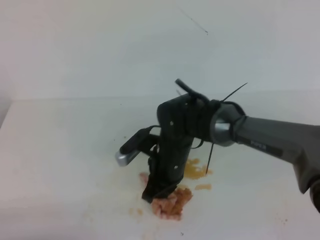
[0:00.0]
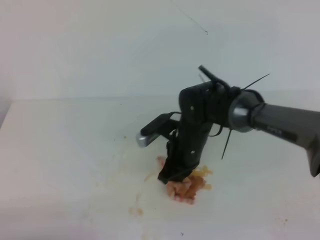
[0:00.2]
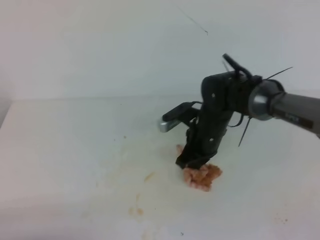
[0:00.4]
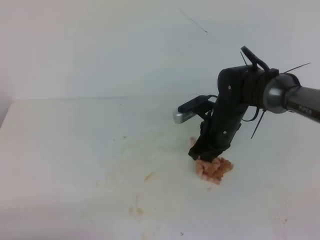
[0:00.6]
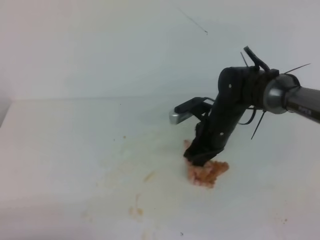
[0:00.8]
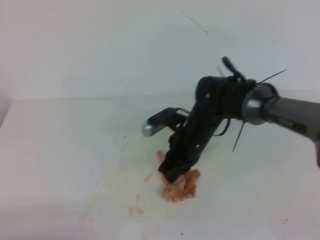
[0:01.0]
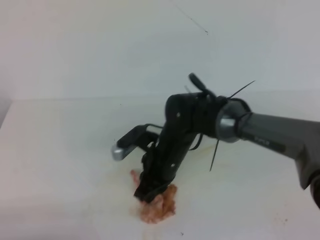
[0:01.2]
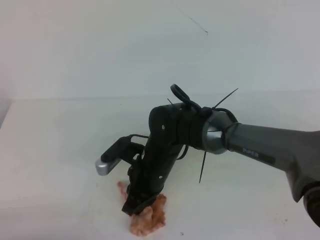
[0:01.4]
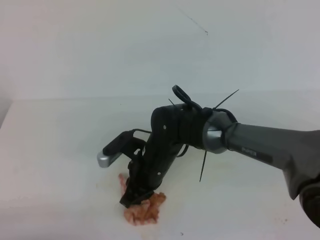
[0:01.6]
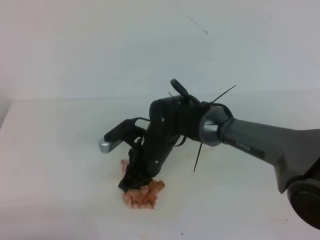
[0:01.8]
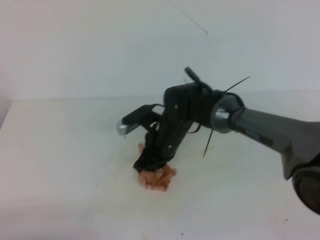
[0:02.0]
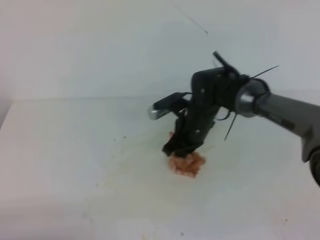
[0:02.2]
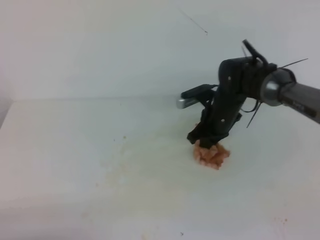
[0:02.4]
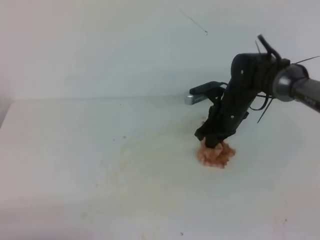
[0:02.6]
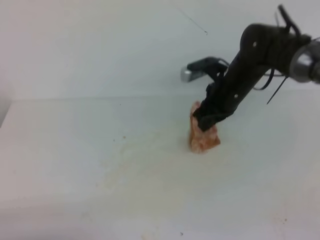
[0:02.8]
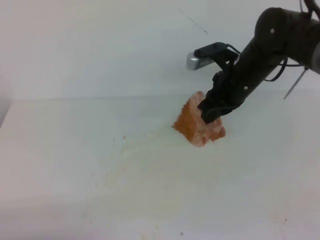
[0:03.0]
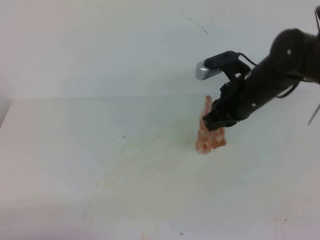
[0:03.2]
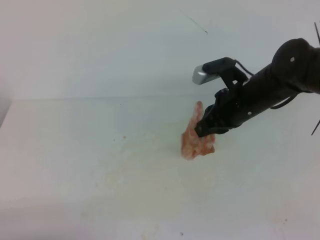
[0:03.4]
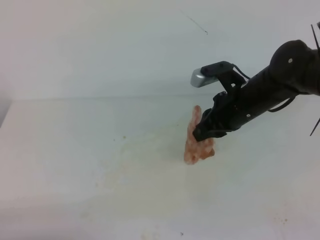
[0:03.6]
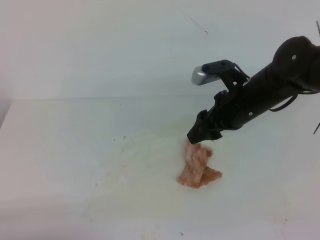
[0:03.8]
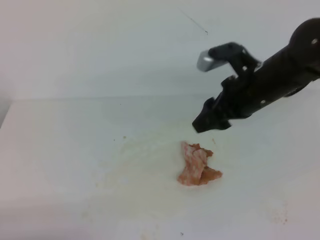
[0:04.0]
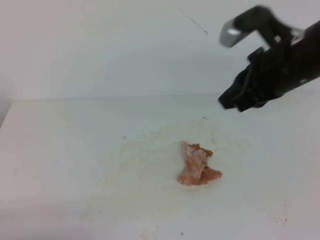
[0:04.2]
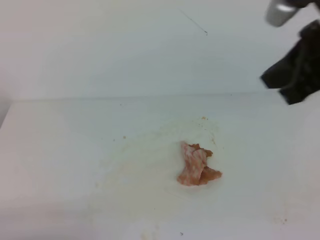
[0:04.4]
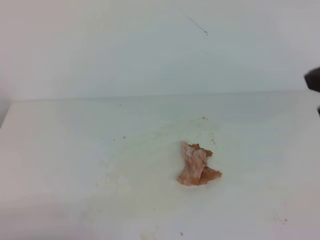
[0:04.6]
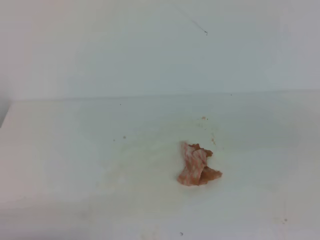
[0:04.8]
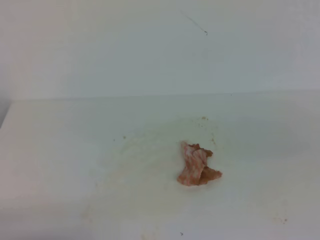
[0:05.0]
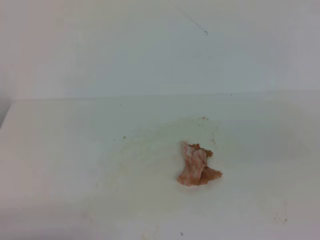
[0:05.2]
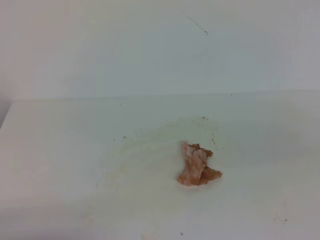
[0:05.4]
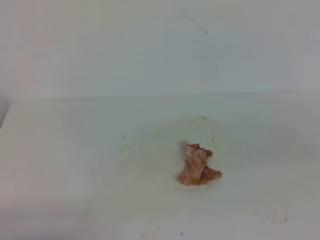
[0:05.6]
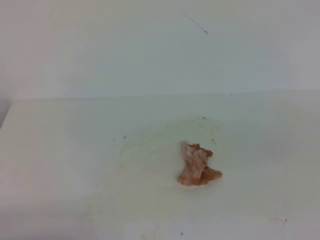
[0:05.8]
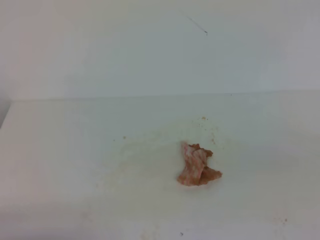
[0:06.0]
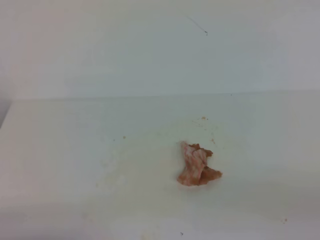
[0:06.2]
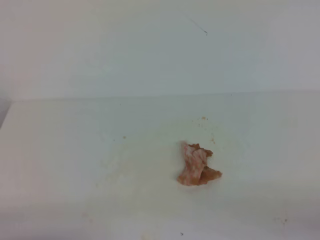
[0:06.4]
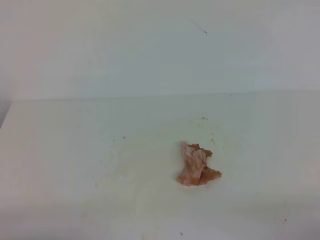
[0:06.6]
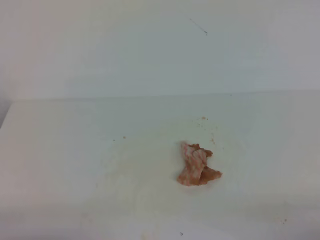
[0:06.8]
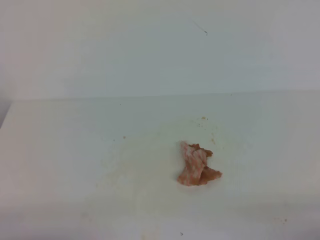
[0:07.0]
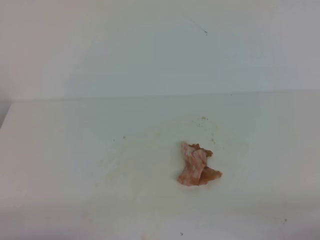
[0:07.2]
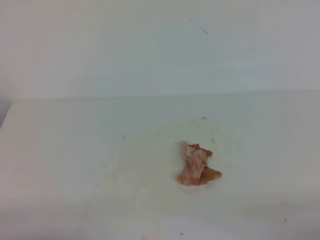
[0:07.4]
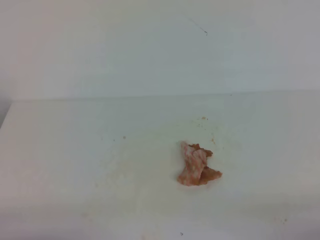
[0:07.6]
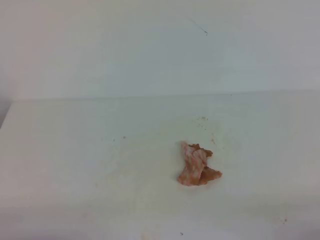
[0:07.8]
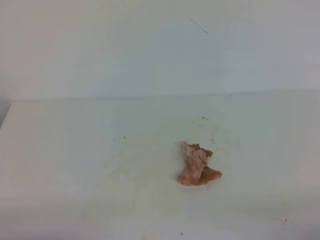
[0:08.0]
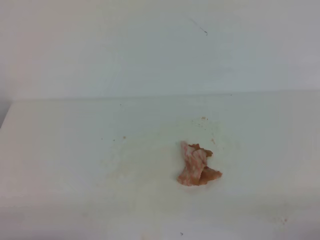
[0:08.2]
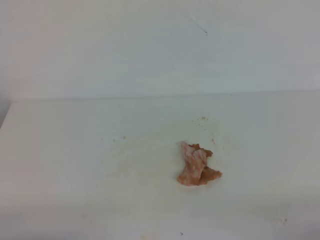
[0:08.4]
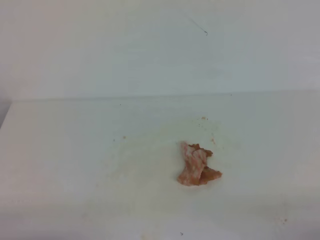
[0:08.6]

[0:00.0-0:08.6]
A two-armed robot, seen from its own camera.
0:00.0 to 0:01.4: The right gripper moves roughly 10 cm to the right and comes back.
0:01.4 to 0:02.8: The right gripper shifts roughly 20 cm to the right and forward.
0:02.8 to 0:04.4: The right gripper goes some 25 cm upward and backward, and opens and closes again.
0:04.4 to 0:05.8: The right gripper goes about 20 cm backward and to the right.
0:07.2 to 0:08.6: The two grippers keep their place.

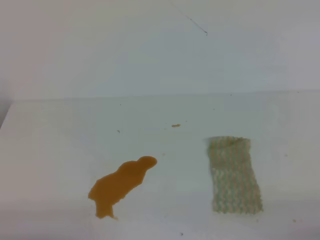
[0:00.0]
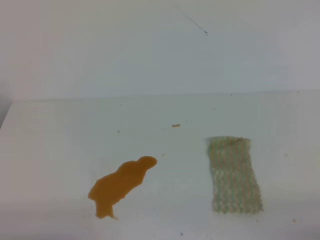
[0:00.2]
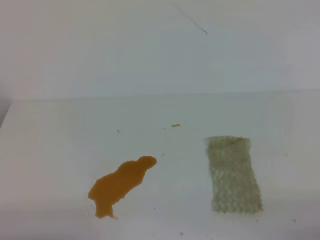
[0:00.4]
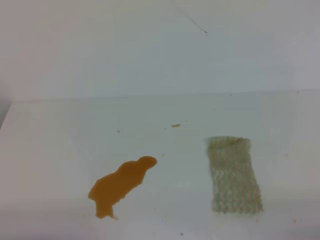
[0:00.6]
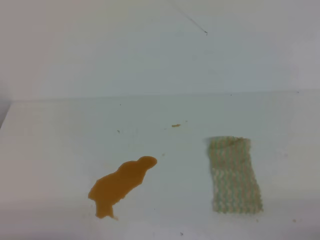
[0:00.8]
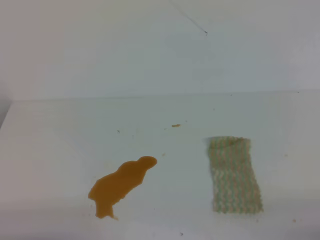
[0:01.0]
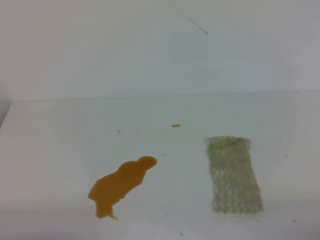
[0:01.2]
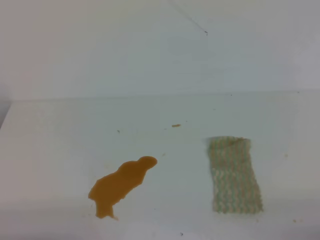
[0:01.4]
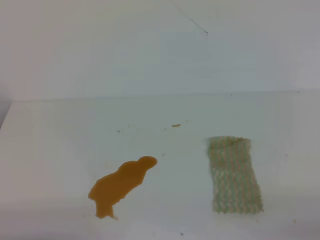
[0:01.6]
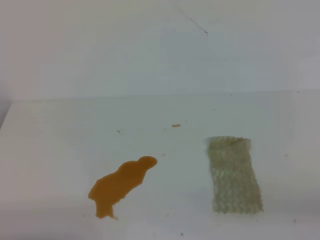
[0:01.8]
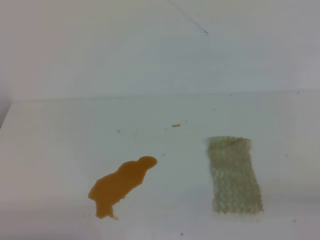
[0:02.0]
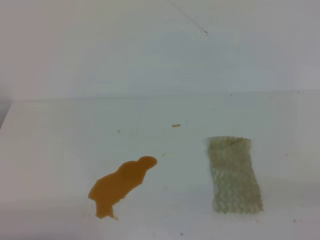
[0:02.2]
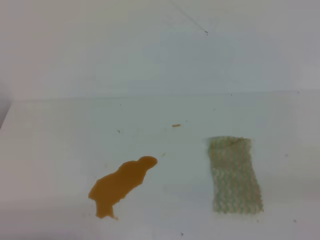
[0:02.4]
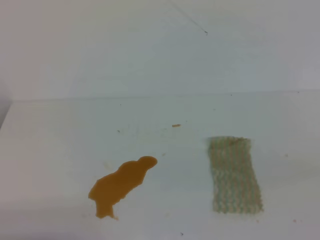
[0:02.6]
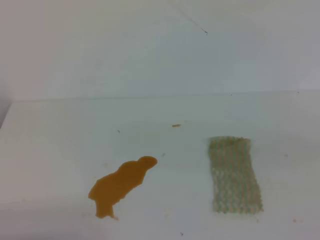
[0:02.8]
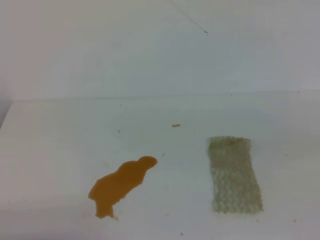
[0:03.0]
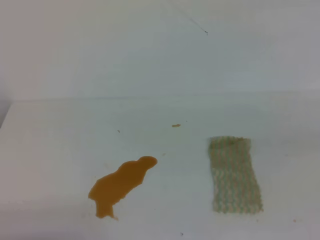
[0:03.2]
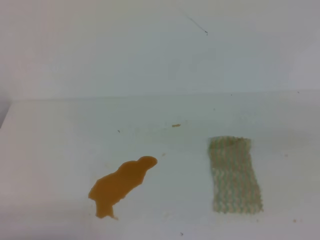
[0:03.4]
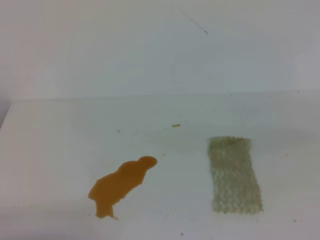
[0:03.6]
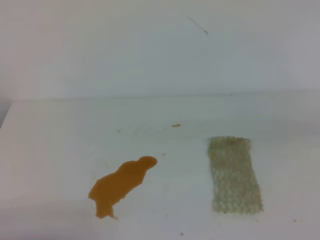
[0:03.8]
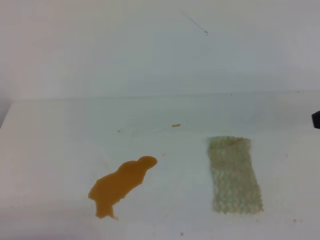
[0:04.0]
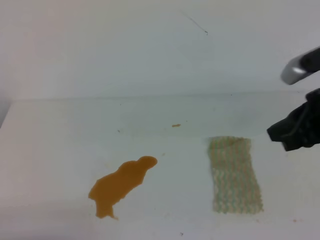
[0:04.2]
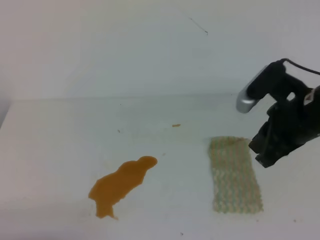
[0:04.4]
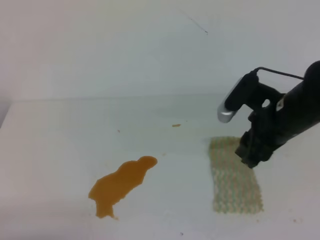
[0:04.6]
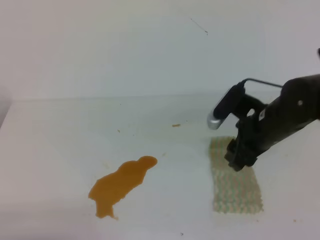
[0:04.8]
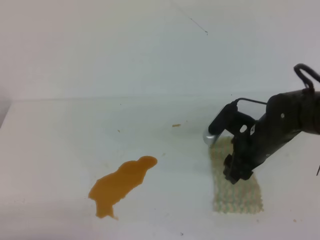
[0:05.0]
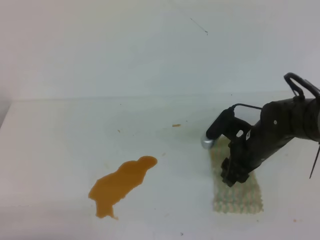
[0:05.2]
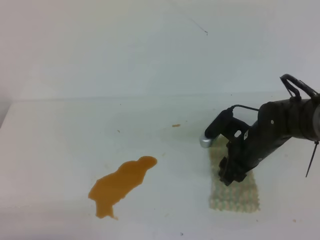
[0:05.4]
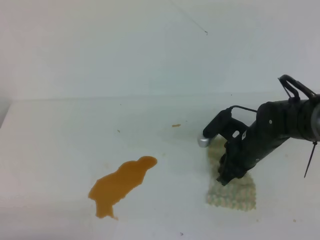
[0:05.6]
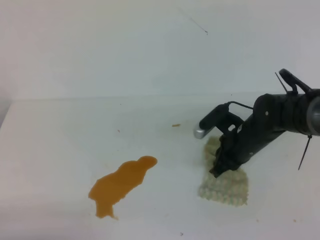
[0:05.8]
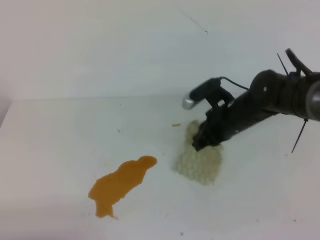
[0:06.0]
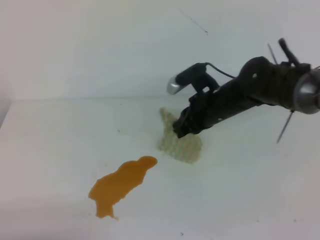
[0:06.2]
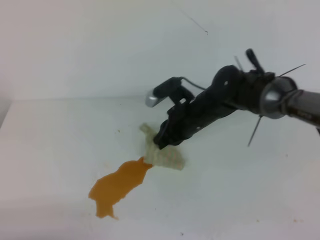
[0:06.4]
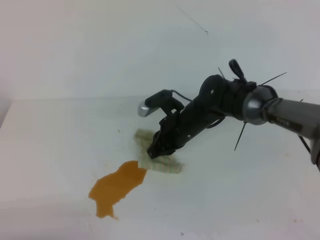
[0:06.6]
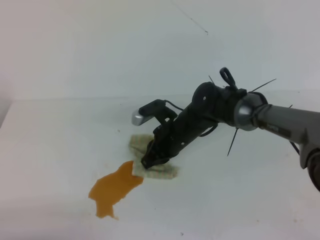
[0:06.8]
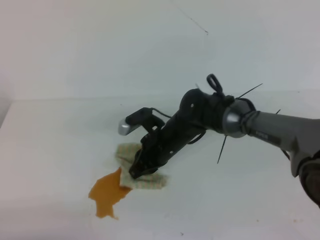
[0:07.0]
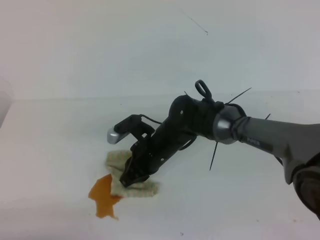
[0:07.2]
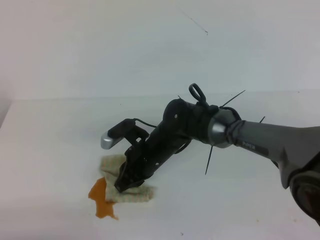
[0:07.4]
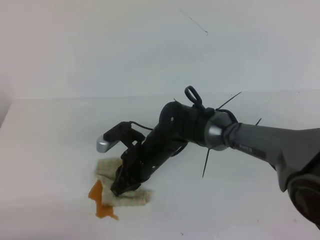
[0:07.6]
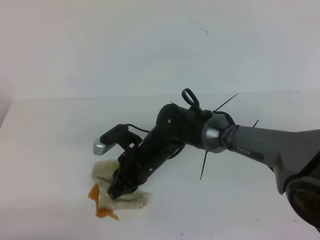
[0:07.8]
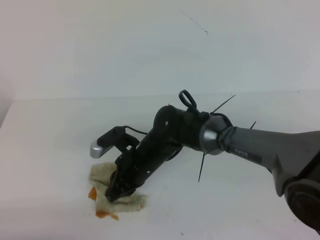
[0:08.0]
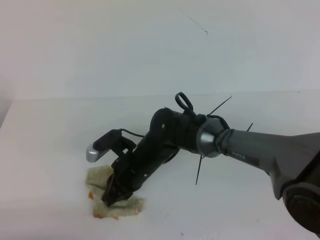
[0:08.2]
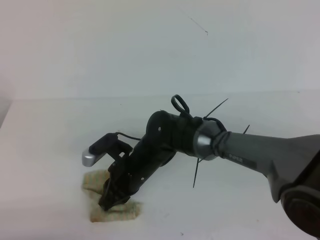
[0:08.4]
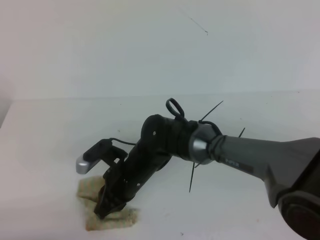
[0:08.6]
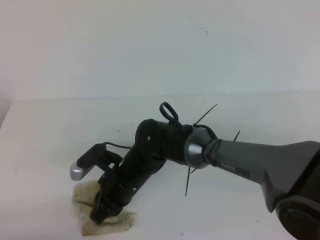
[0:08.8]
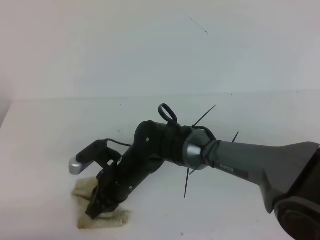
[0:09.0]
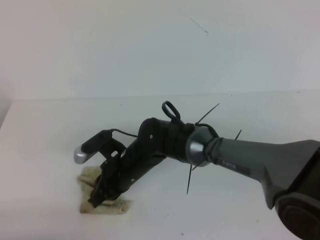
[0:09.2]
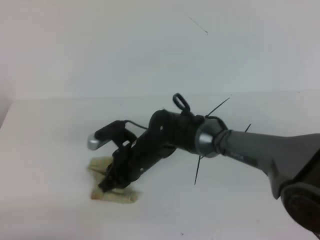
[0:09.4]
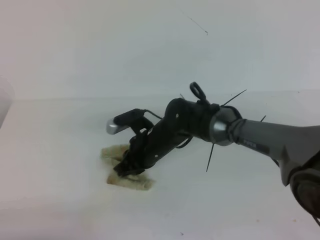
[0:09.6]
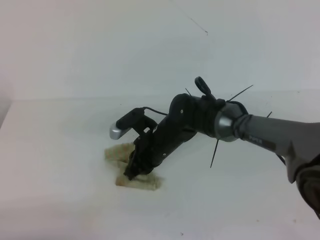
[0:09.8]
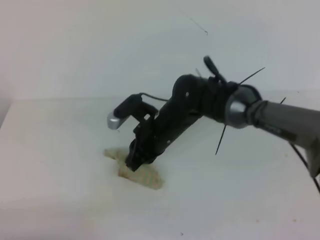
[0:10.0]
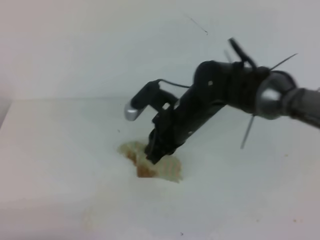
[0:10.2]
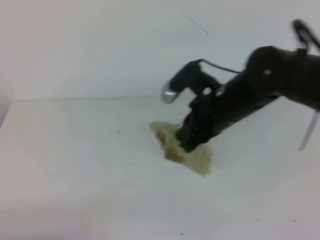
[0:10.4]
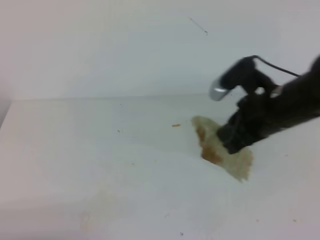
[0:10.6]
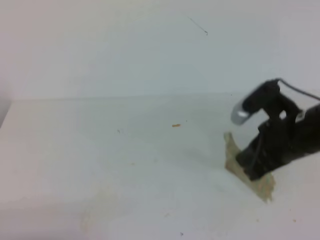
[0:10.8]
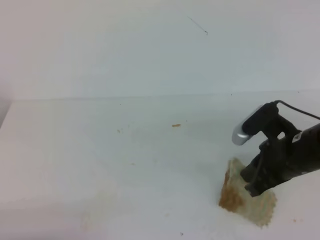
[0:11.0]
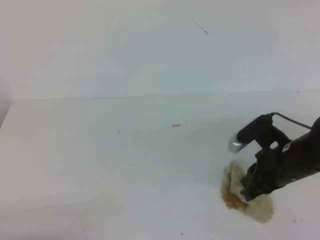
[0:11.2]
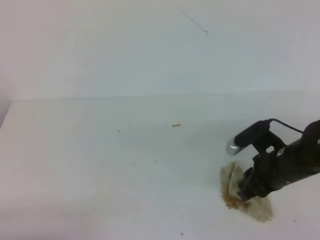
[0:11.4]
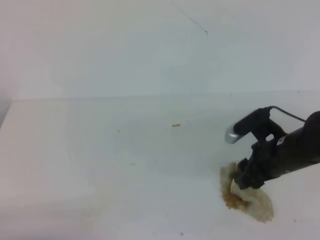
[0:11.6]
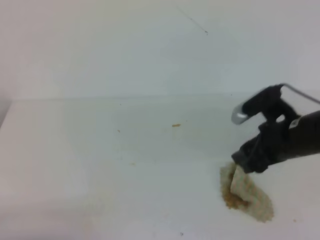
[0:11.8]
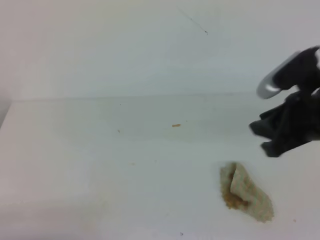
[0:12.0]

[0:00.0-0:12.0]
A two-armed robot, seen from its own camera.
0:03.0 to 0:04.4: The right gripper shifts approximately 20 cm forward and to the left, and opens.
0:04.4 to 0:06.0: The right gripper shifts roughly 15 cm downward, forward and to the left, and closes up.
0:06.0 to 0:07.6: The right gripper travels to the left by approximately 15 cm.
0:07.6 to 0:09.0: The right gripper ends up approximately 5 cm from where it was.
0:09.0 to 0:10.4: The right gripper shifts about 20 cm to the right and upward.
0:10.4 to 0:12.0: The right gripper travels to the right and backward by roughly 15 cm, moves roughly 10 cm downward and comes back, and opens.

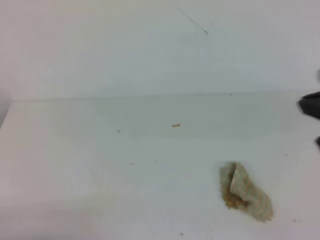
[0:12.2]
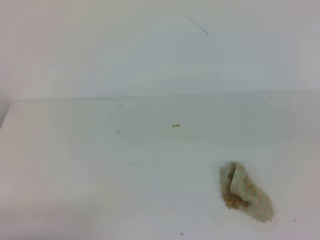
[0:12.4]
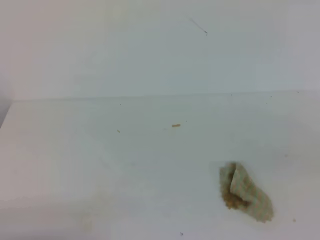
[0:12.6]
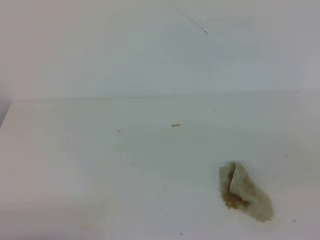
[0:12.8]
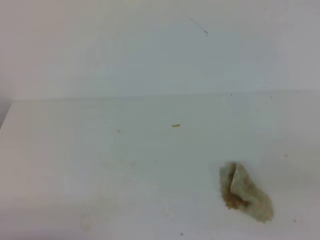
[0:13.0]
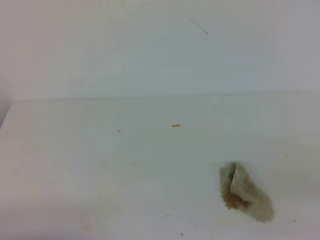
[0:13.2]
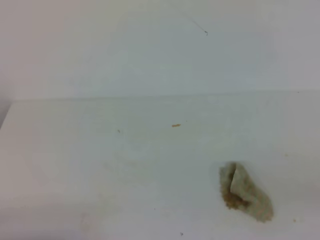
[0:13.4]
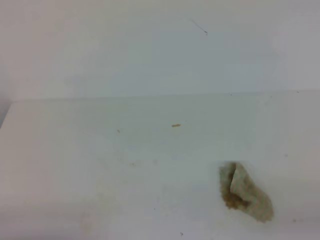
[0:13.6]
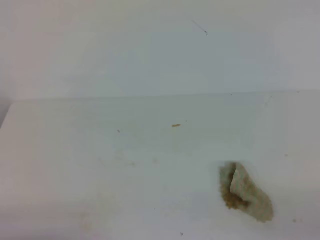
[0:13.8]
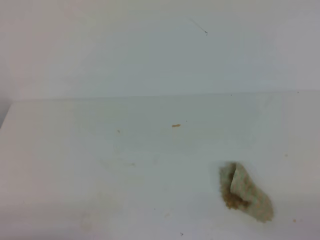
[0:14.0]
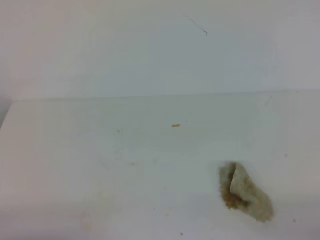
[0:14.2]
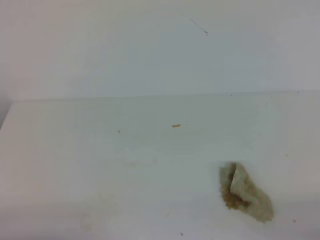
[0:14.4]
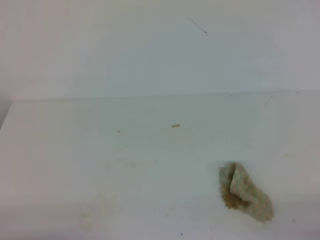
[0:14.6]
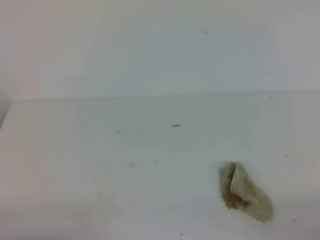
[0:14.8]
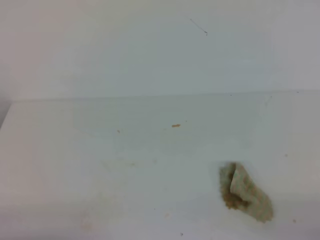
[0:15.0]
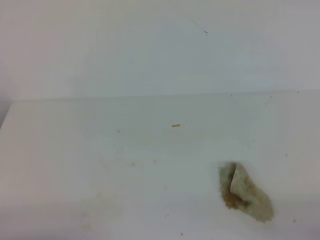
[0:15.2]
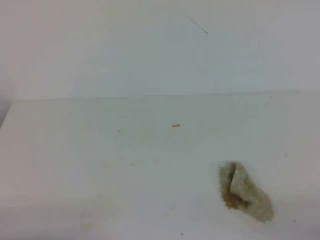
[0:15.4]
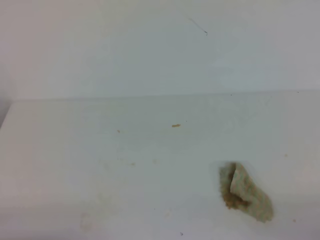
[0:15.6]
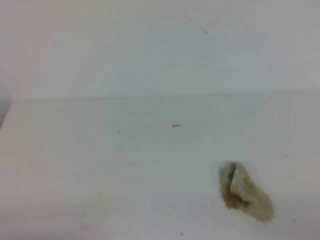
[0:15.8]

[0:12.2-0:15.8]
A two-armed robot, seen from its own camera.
0:12.2 to 0:14.0: The right gripper travels backward, downward and to the right by roughly 25 cm.
